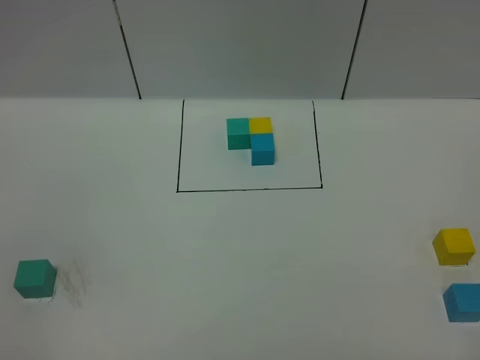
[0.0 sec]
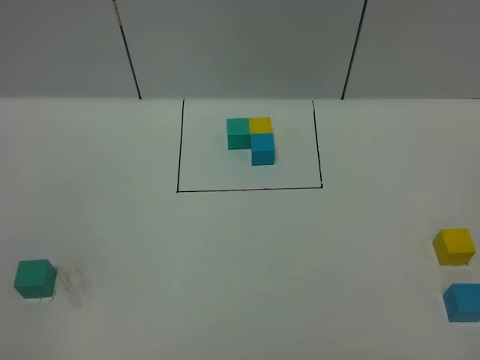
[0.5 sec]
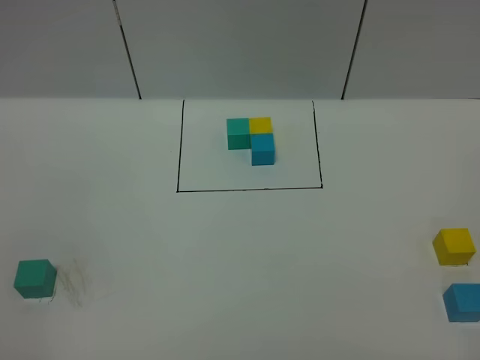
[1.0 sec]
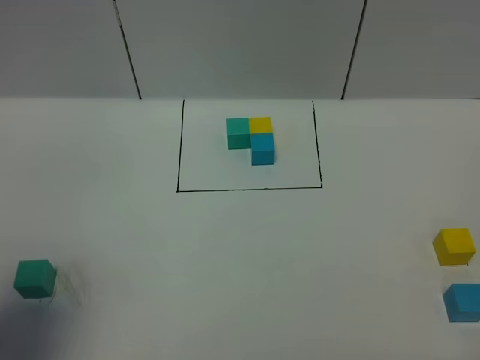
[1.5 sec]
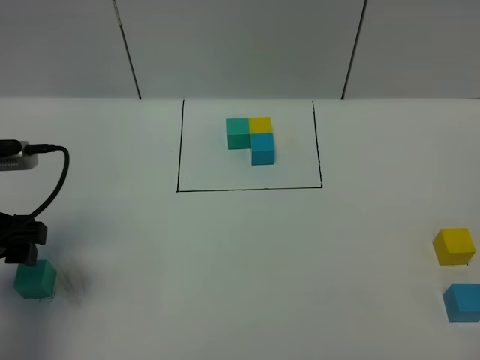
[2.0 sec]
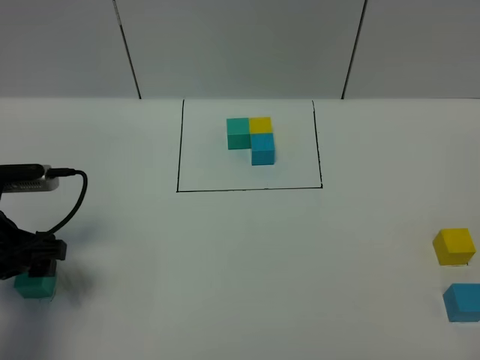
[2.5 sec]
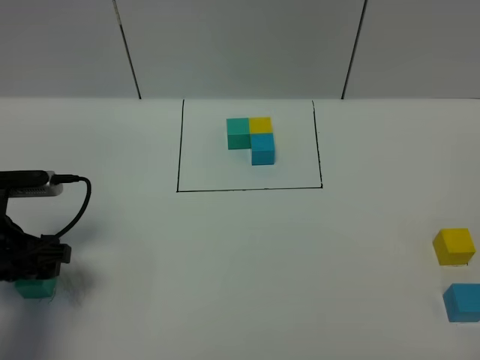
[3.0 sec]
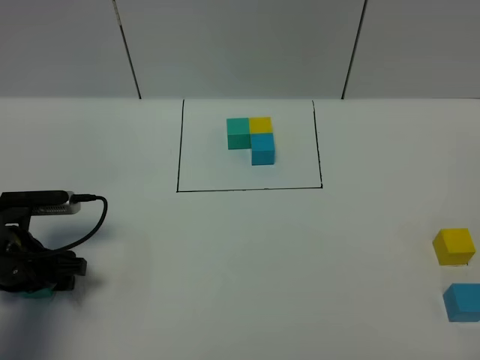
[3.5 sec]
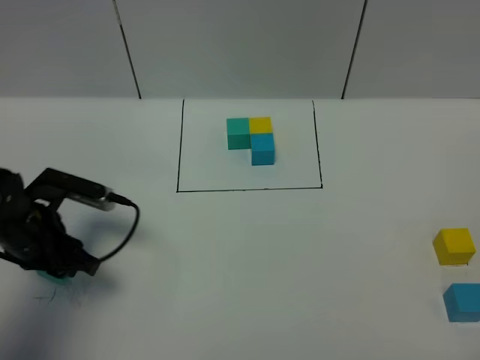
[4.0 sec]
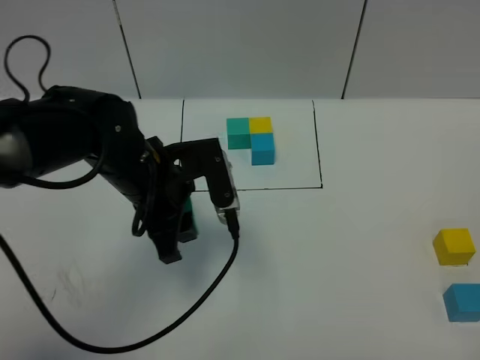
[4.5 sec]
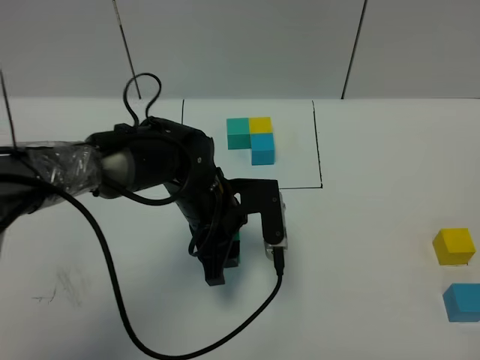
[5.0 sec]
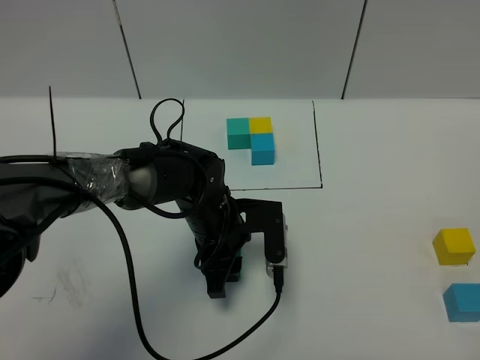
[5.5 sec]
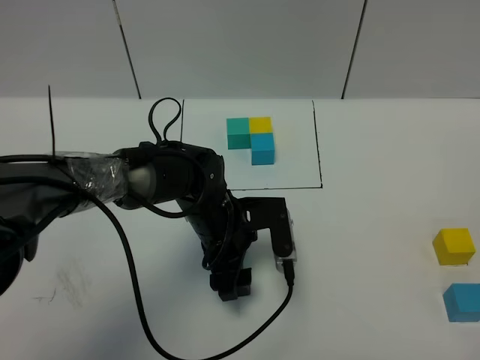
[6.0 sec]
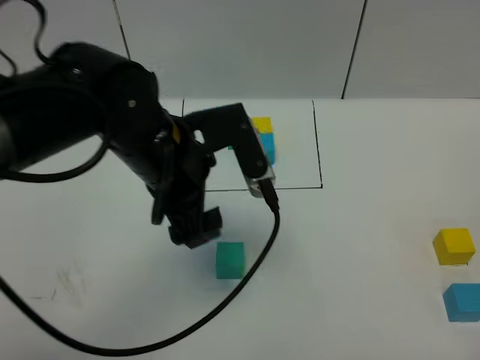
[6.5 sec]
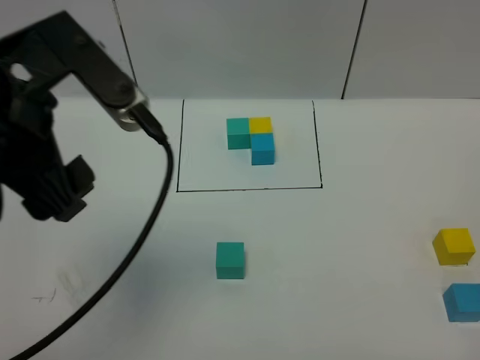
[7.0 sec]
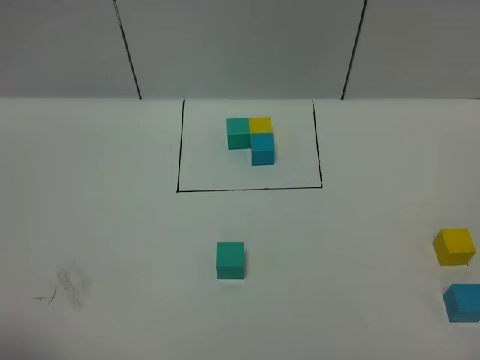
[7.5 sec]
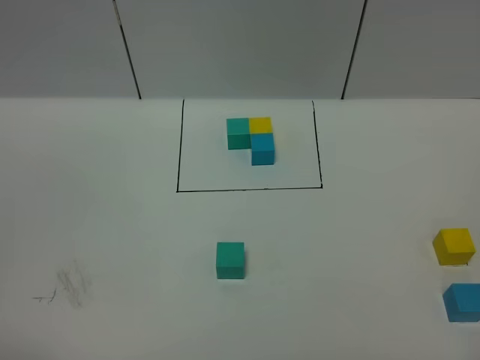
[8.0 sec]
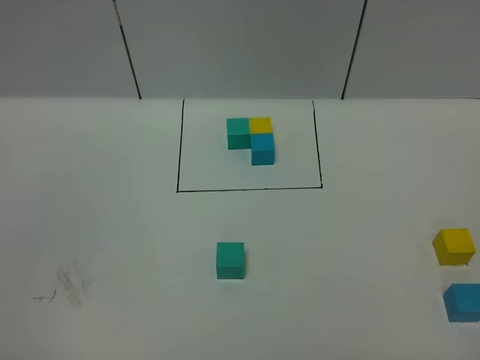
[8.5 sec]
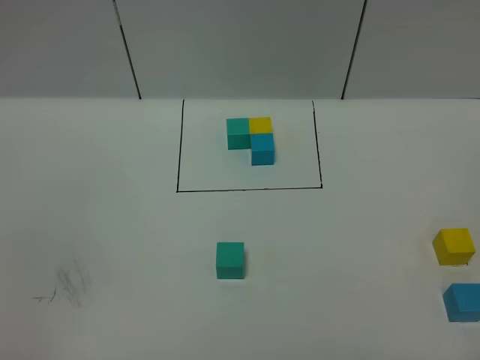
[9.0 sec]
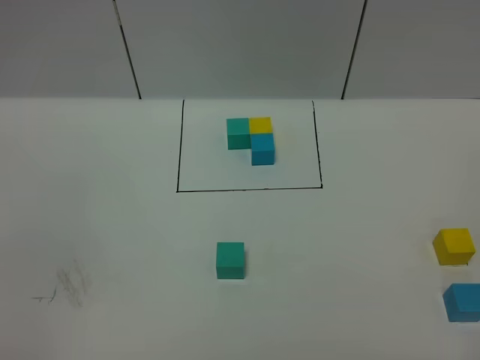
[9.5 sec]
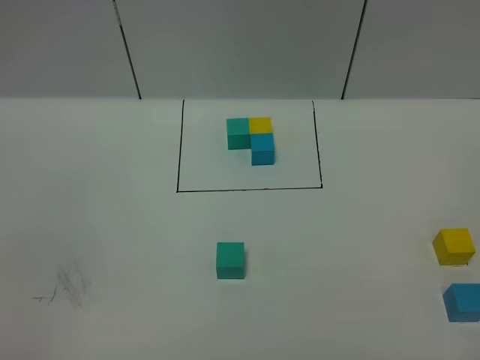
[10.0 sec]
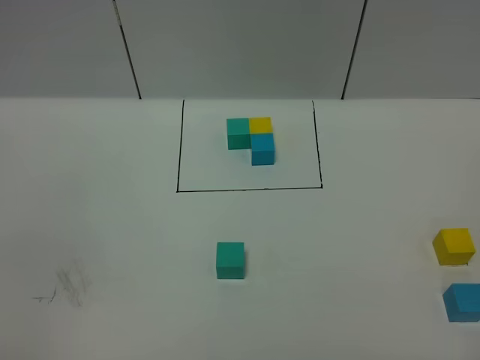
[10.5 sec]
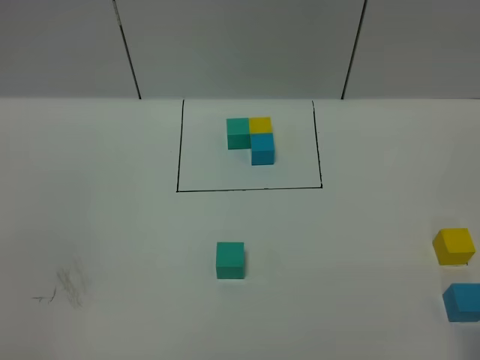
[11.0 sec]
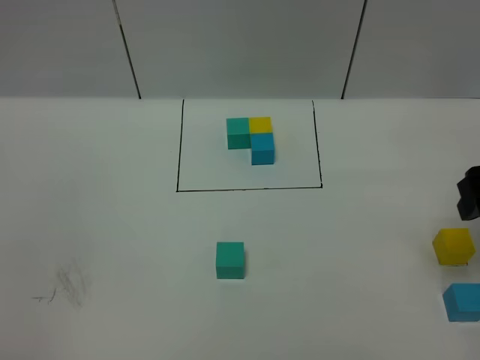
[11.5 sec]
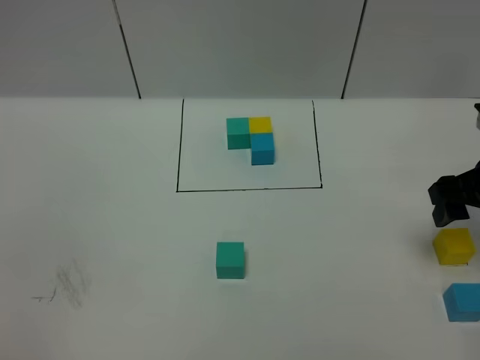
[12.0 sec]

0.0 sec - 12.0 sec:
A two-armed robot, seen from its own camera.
Task of the whole recording: According to the building block template in front, assemble the scattered blocks together.
Step, 2.0 sec - 6.5 sec: Put the green cube in the center of the table.
0.0 sec - 2.0 sec: The left gripper travels forward by about 25 cm.
2.0 sec - 4.0 sec: The left gripper shifts roughly 10 cm downward, and closes up.
4.0 sec - 6.0 sec: The left gripper goes roughly 20 cm to the right, and opens.
6.0 sec - 8.0 sec: The left gripper moves backward, to the left and upward, roughly 50 cm.
10.0 sec - 12.0 sec: The right gripper shifts approximately 30 cm forward.

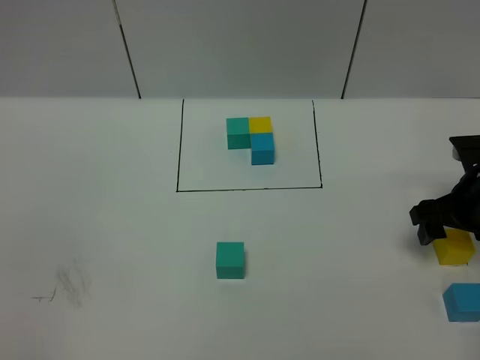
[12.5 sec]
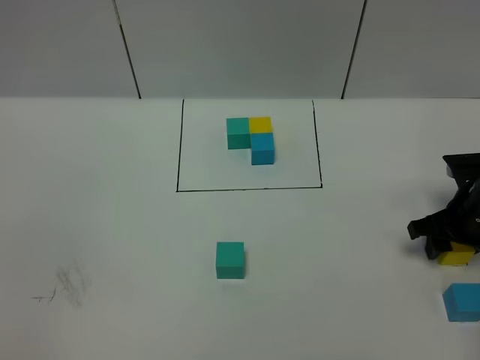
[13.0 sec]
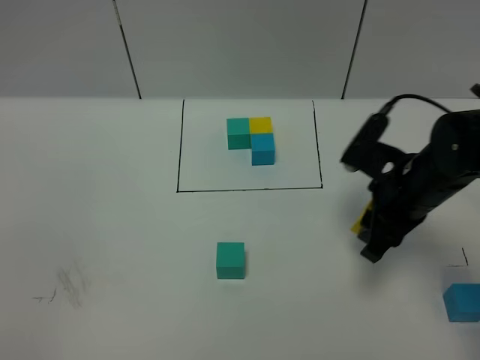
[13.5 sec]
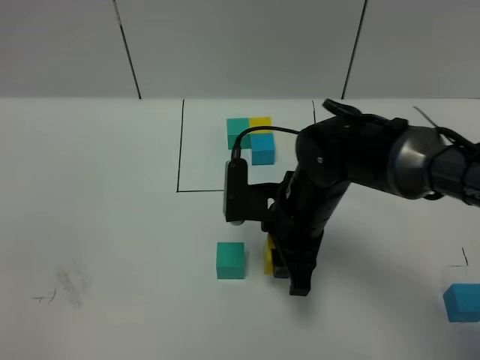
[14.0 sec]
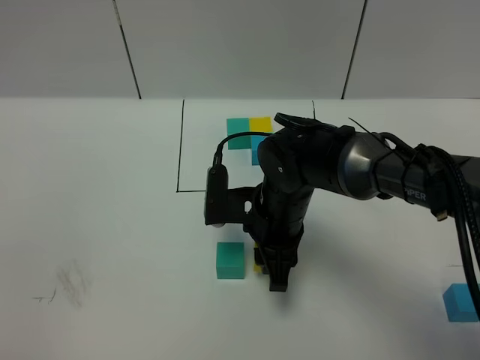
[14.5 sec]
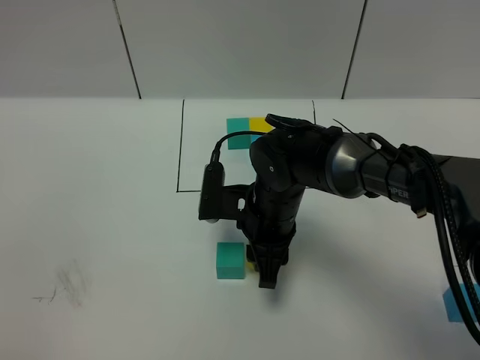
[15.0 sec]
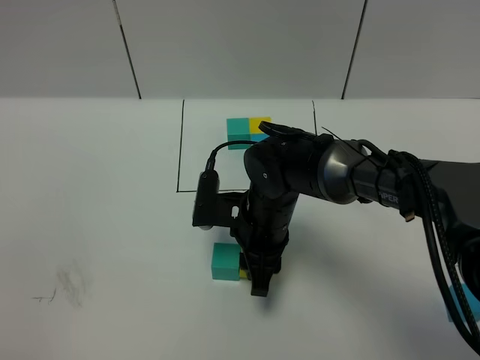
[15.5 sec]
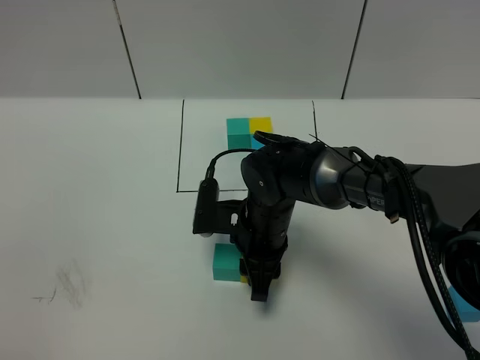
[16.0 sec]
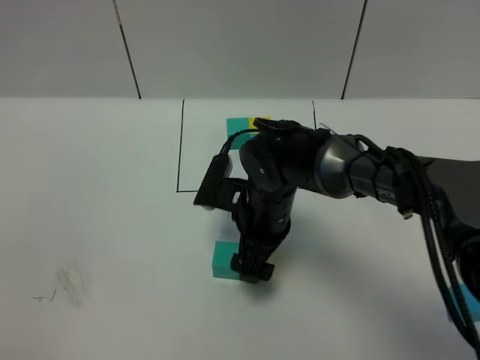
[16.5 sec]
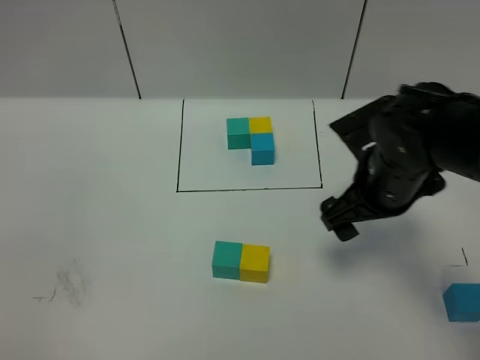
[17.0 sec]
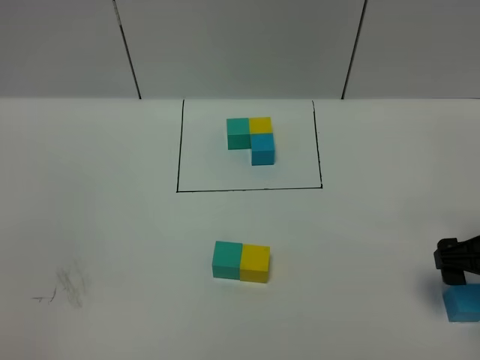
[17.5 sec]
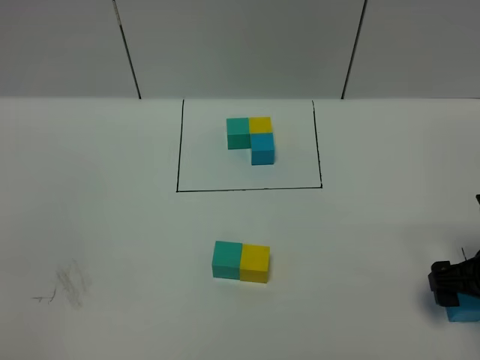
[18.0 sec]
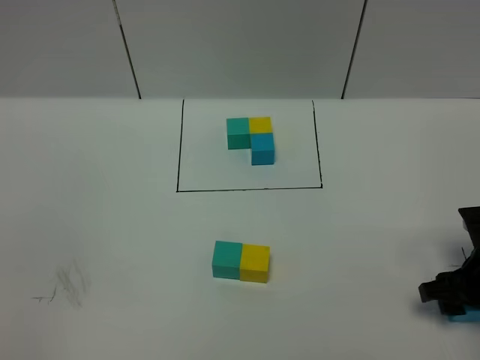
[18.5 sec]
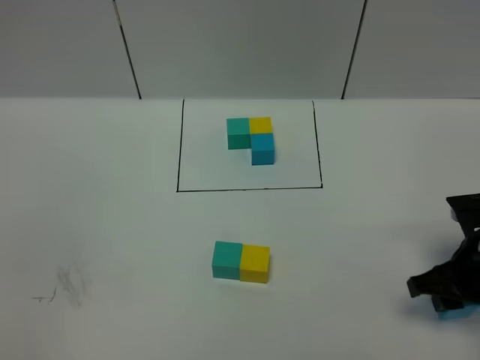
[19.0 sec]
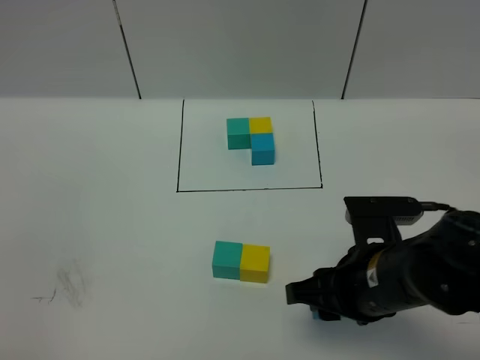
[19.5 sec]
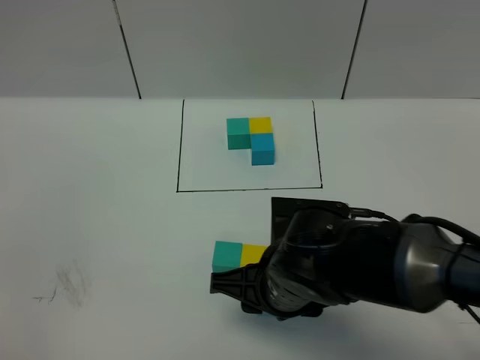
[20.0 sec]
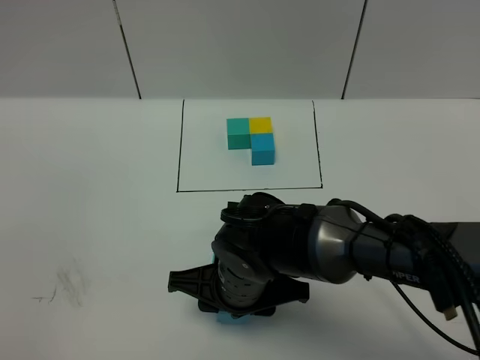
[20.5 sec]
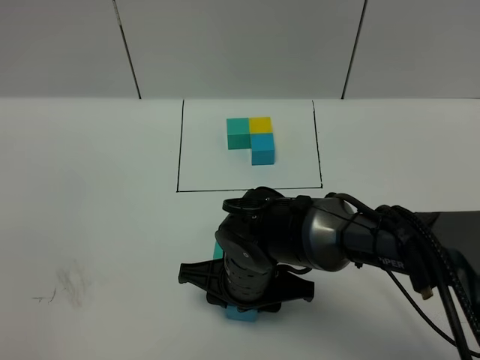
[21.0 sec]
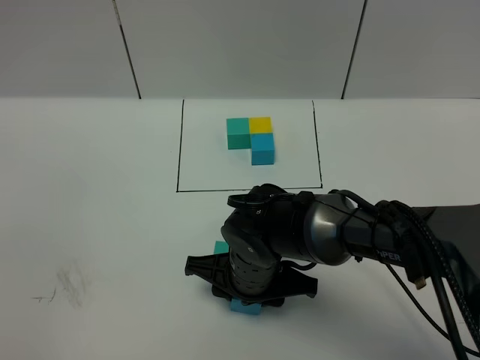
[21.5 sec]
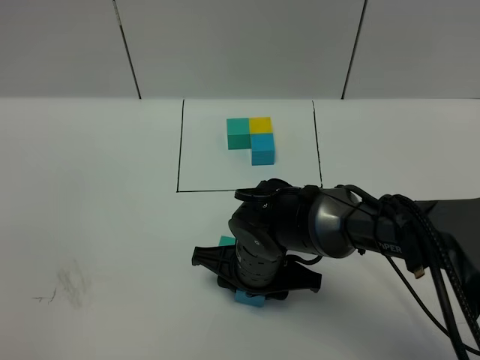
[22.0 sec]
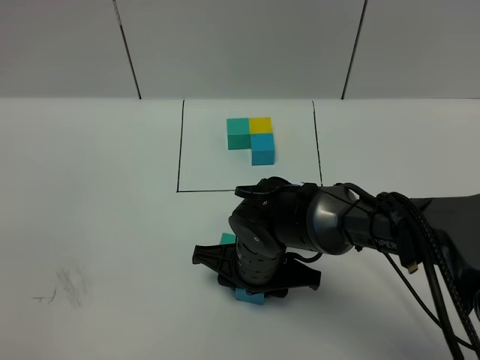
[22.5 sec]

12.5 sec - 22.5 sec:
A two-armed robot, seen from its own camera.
Task of the whole recording: According to the building block template in front, assemble the scattered blocks together.
Step, 12.5 sec - 17.0 sec: Put the yellow cube on the right of the green cube.
12.5 sec - 14.5 sec: The right gripper heads to the left, covering roughly 25 cm, and closes.
14.5 sec - 16.5 sec: The right gripper opens.
16.5 sec - 18.5 sec: The right gripper heads to the right, covering about 25 cm, and closes.
18.5 sec - 20.5 sec: The right gripper is displaced to the left by some 30 cm.
20.5 sec - 22.5 sec: The right gripper ends up about 5 cm from where it was.

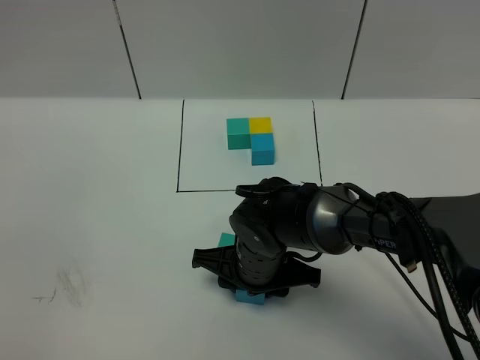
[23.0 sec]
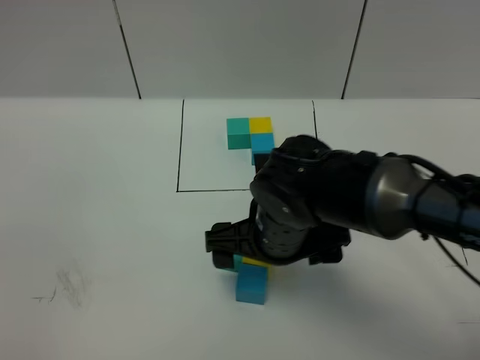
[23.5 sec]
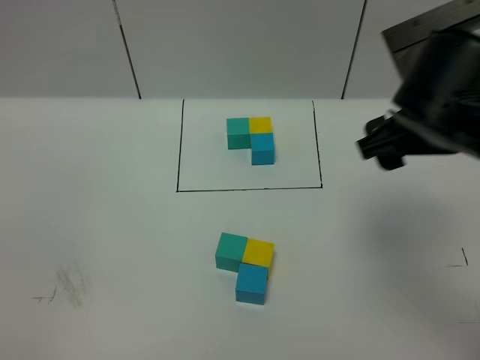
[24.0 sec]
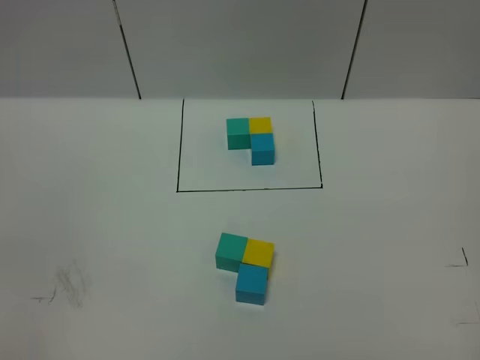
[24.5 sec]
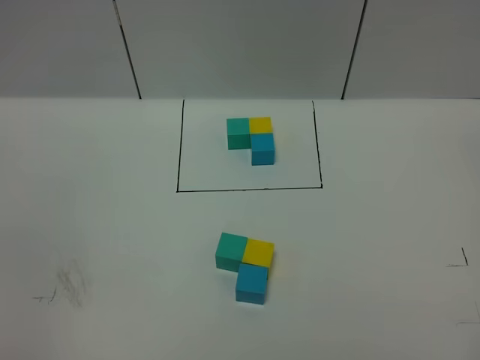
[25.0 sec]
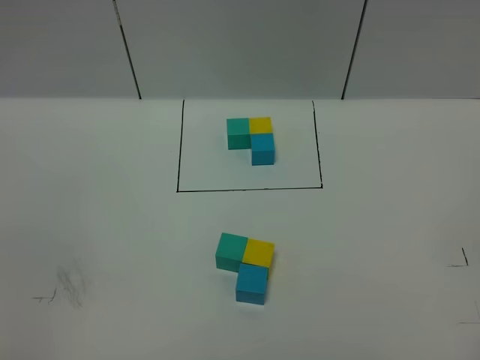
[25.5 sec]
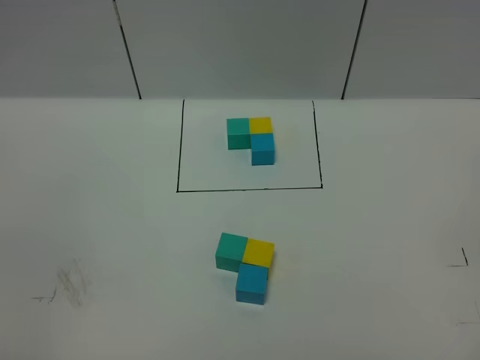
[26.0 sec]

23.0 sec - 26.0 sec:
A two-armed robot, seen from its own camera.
Task of the whole recording: According to the building block template in front, assemble the scattered blocks together.
23.0 sec - 24.5 sec: The right gripper shifts about 40 cm to the right and upward, and opens.
